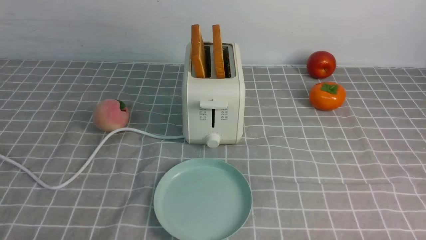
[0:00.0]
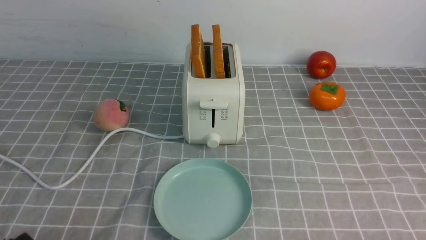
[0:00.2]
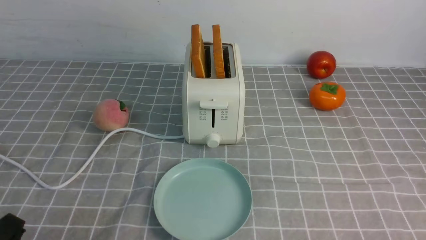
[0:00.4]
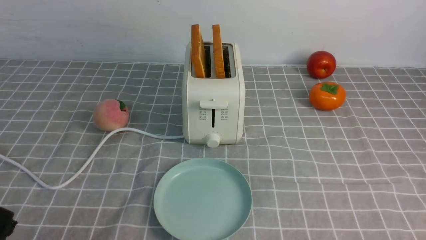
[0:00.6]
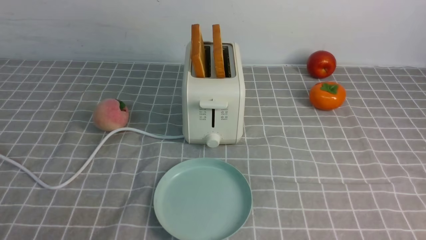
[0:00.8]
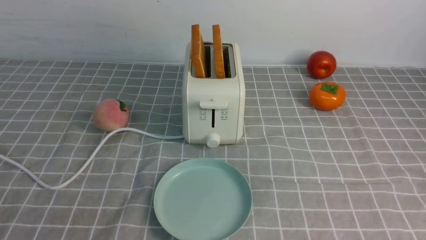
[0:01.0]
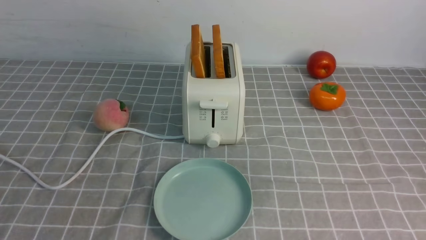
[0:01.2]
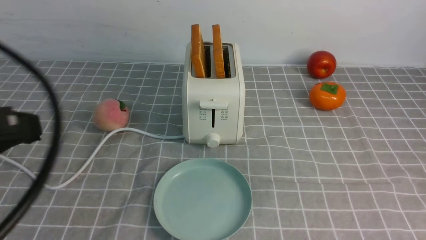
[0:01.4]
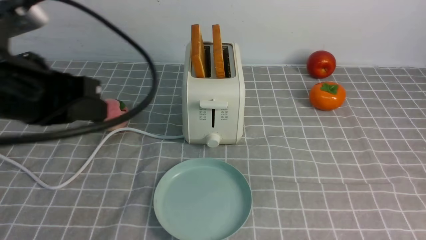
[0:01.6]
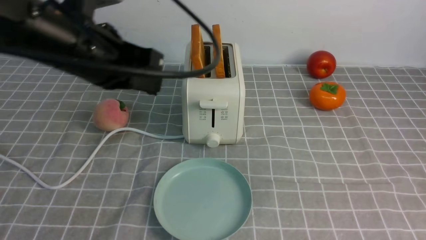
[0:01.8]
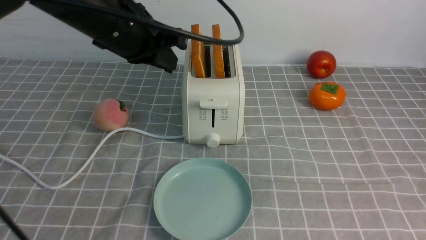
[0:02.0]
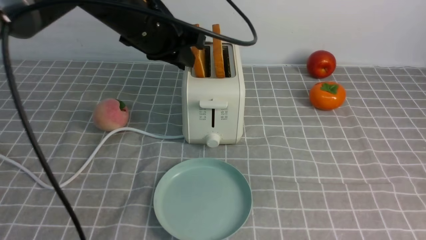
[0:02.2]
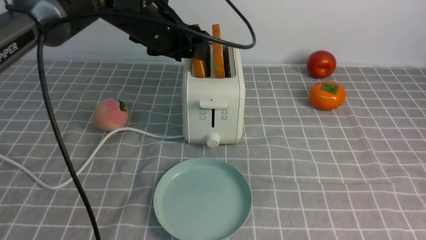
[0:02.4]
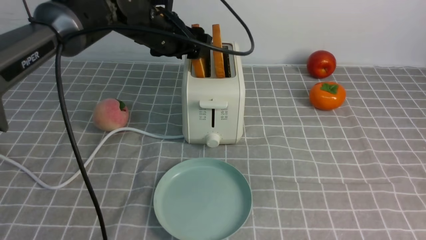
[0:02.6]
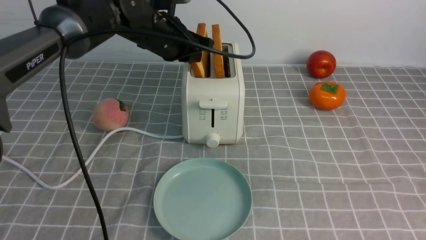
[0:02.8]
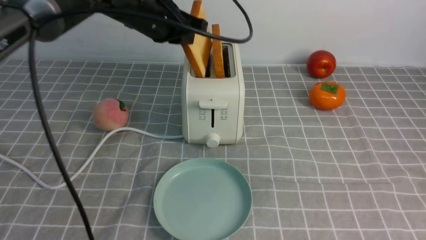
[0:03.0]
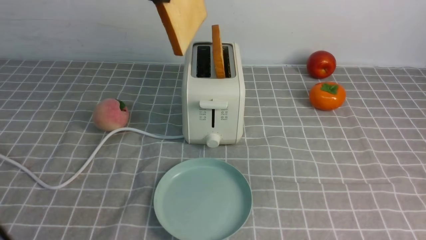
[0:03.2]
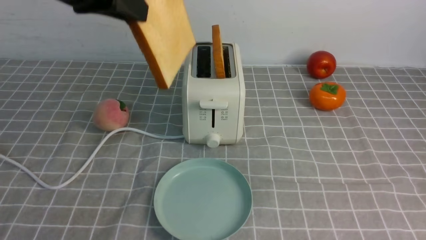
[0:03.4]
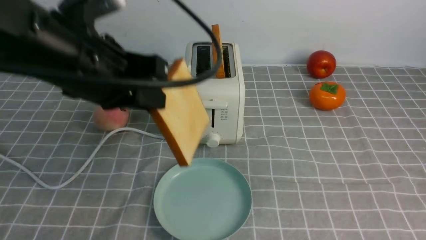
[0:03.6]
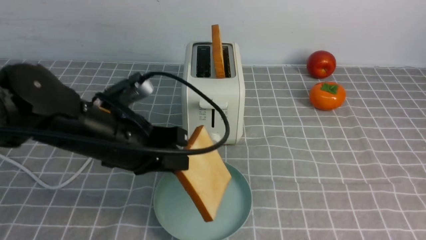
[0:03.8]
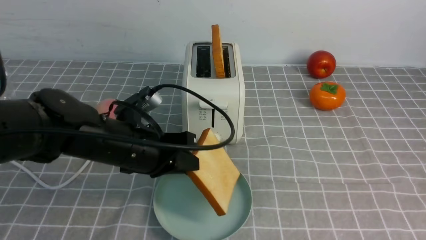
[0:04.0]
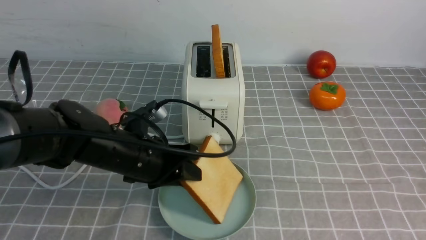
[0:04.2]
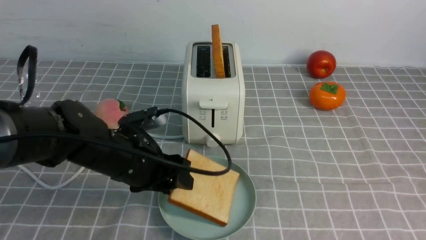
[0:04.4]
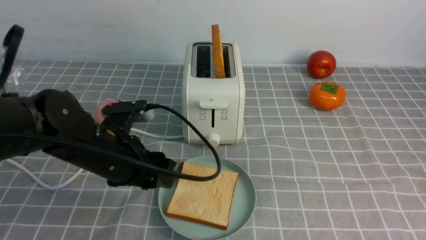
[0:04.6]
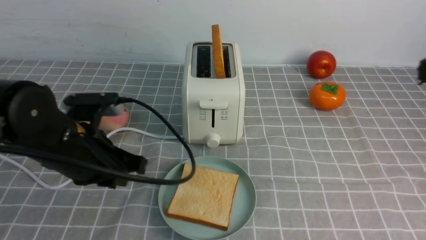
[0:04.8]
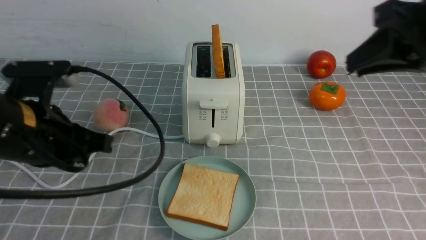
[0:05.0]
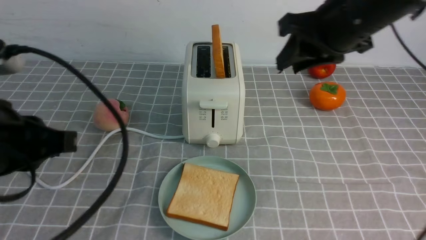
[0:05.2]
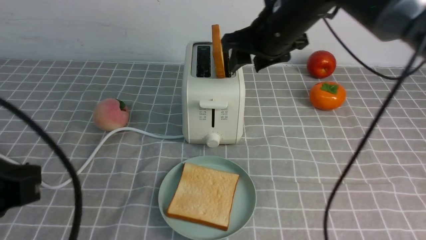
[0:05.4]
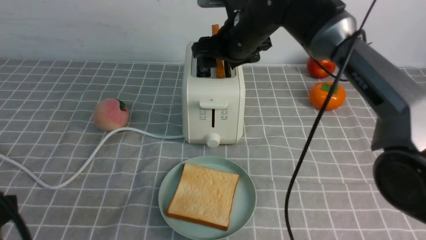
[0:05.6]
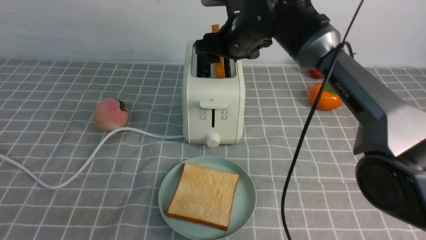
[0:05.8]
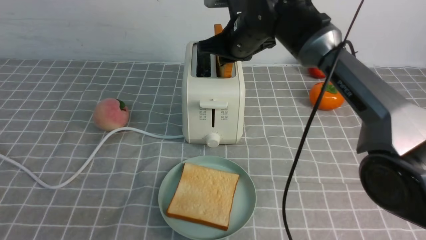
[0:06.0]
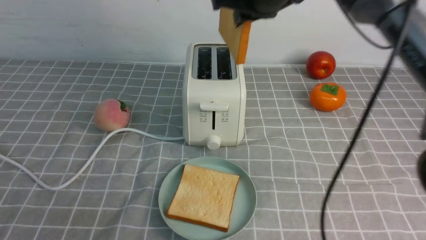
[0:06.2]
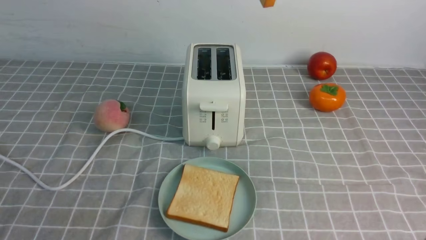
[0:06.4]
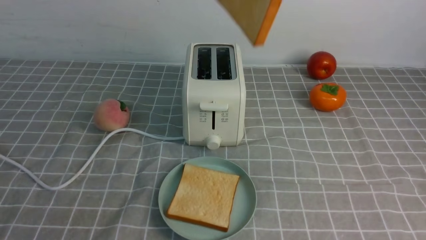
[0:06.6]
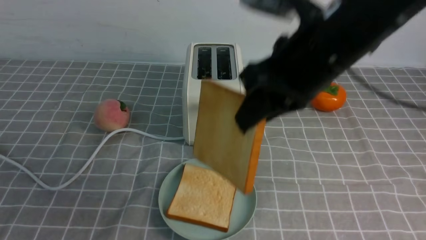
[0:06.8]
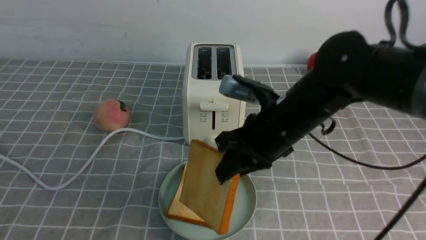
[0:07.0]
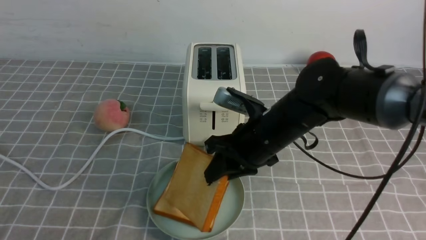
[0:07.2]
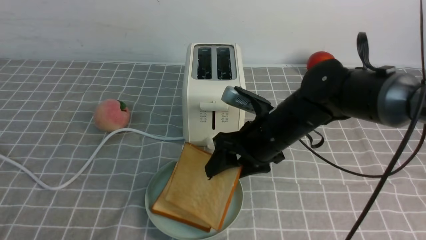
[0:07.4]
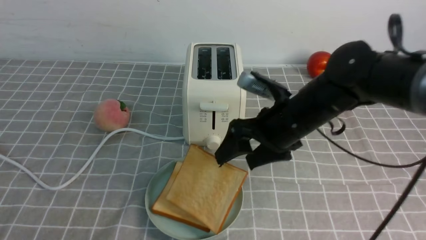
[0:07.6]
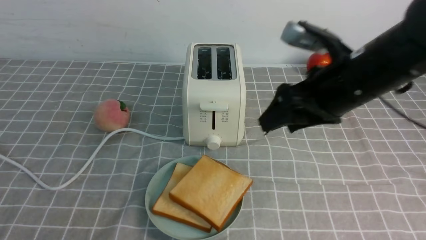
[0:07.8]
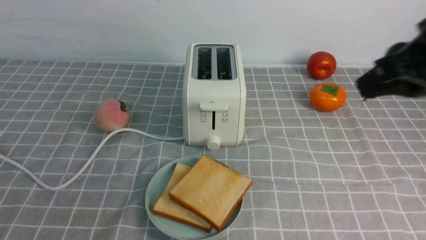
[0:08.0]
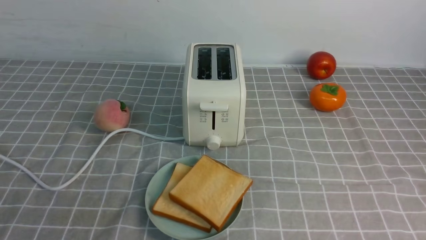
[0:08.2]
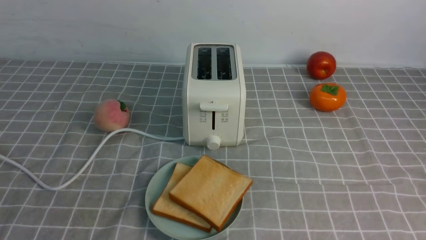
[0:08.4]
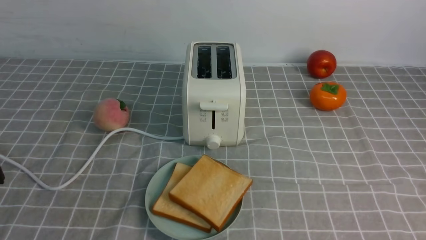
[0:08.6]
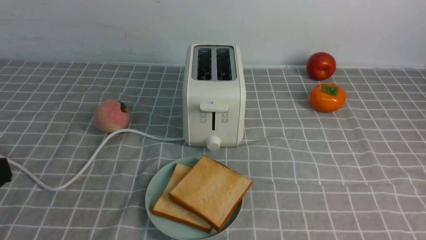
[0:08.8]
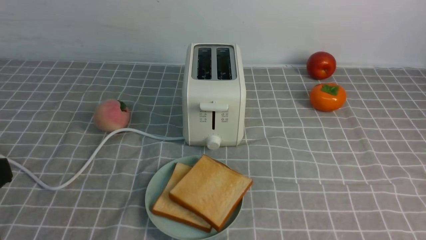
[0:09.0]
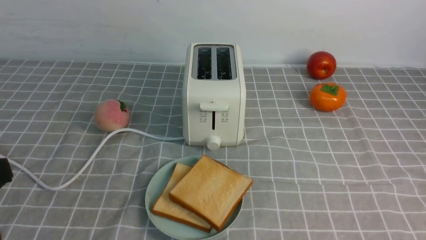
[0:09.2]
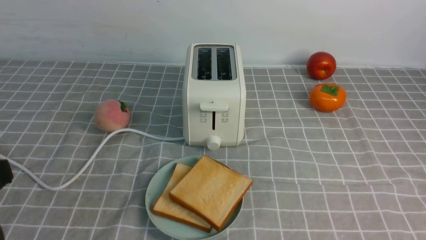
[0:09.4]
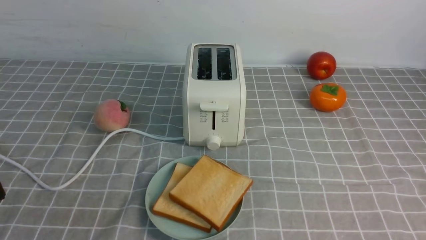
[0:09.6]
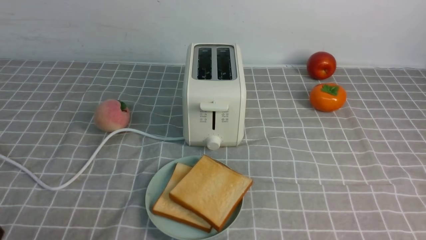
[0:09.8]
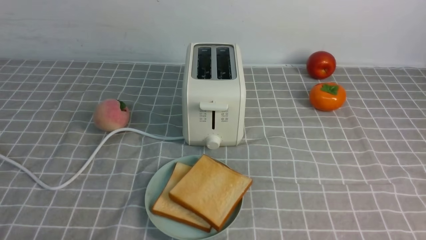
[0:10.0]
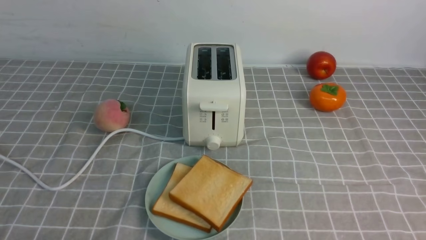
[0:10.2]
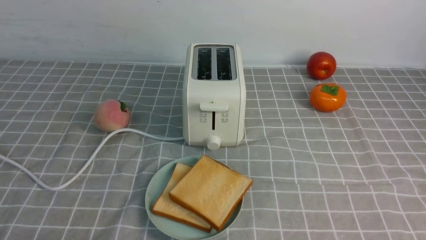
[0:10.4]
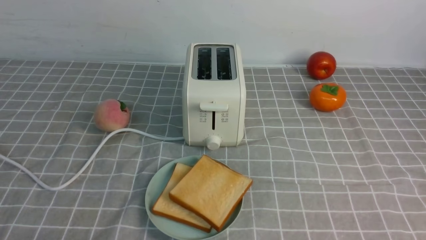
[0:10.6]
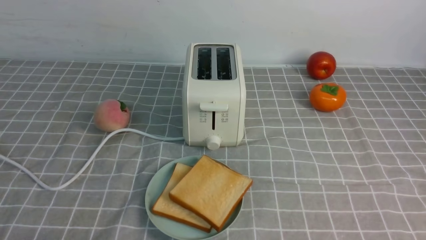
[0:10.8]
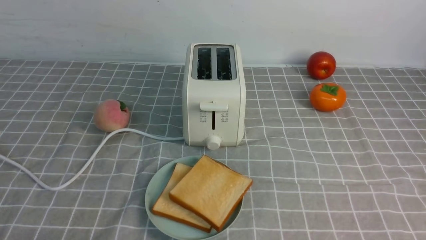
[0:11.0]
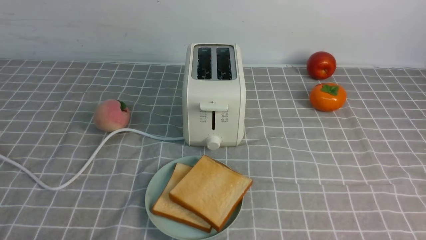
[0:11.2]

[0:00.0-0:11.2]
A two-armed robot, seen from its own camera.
Task of the whole recording: take toasted bread from bread machine on grey coffee table place on plate.
Step, 0:00.0 to 0:03.0: use the left arm to take out a slice of bread.
Step, 0:03.4 to 0:04.6: use the left arm to put a slice of bread into the empty plate.
Step, 0:04.8 to 0:06.2: use the right arm to take out a slice of bread.
Step, 0:06.4 to 0:07.8: use the right arm to put a slice of bread into the plate.
0:00.0 to 0:01.6: The left gripper moves upward and forward, some 25 cm, and closes its fingers.
0:01.6 to 0:03.2: The left gripper goes approximately 15 cm forward, upward and to the right, and opens, then closes again.
0:03.2 to 0:04.8: The right gripper is displaced forward and upward by roughly 15 cm. The left gripper moves downward and backward, roughly 20 cm, and opens, then closes again.
0:04.8 to 0:06.4: The left gripper is displaced backward by about 20 cm, and closes its fingers. Meanwhile the right gripper heads to the left, forward and upward, covering approximately 20 cm, and opens, then closes again.
0:06.4 to 0:08.0: The right gripper heads backward and to the right, covering some 15 cm, goes downward and returns, approximately 25 cm each way, and opens and closes again.
0:08.0 to 0:09.6: The right gripper travels backward, downward and to the right by some 25 cm.

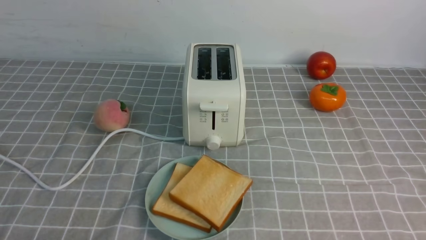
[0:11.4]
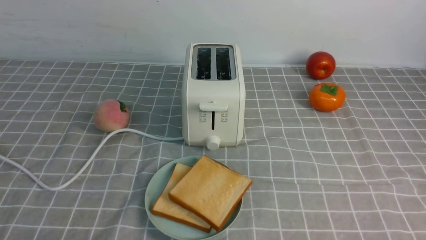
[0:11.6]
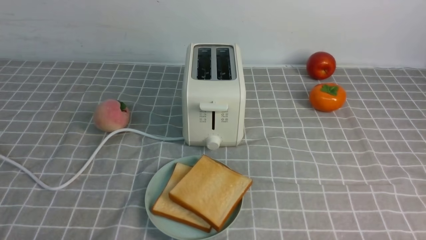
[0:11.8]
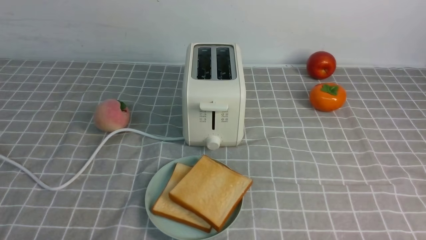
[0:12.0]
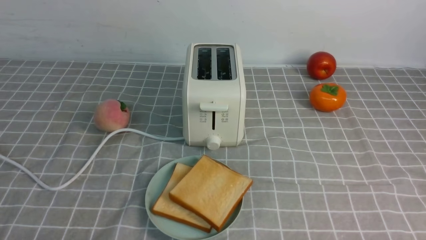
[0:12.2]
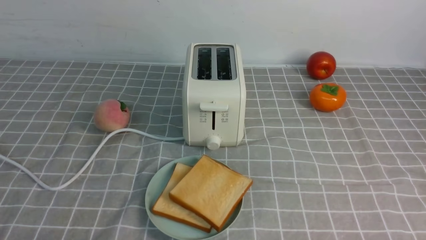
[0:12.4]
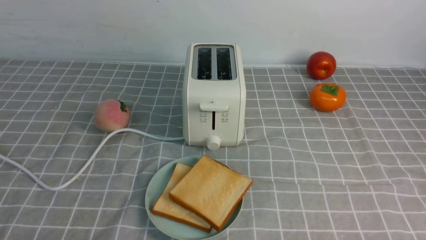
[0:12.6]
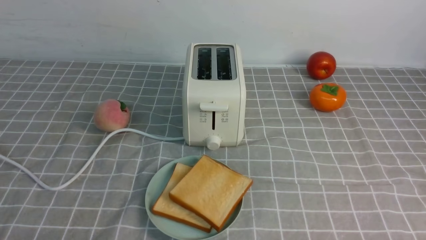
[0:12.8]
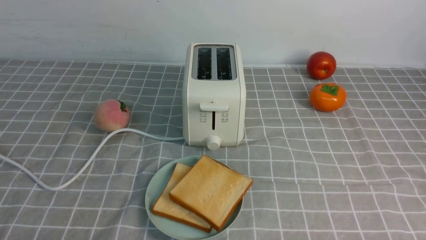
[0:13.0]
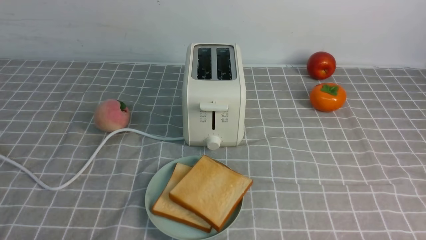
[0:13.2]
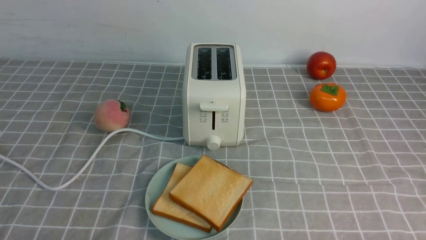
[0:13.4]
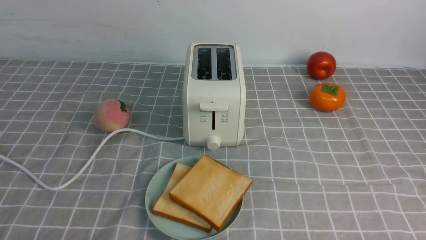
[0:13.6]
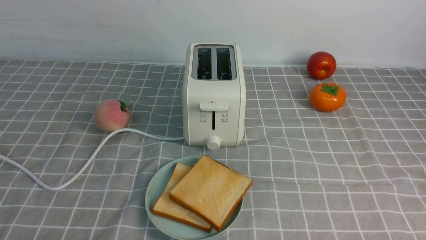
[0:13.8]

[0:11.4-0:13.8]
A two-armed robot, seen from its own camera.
Task of the whole recording: take toasted bread from bread machine on grey coffee table place on plate.
0:12.6 to 0:13.8: The two grippers keep their place.

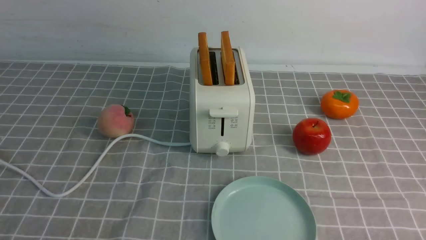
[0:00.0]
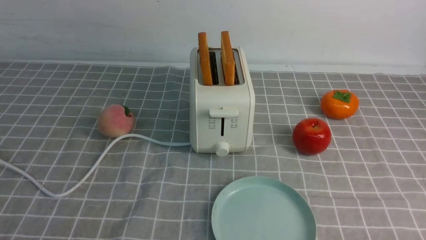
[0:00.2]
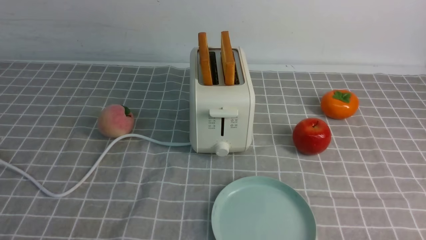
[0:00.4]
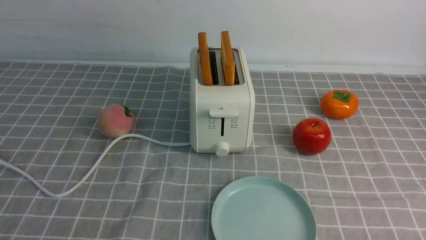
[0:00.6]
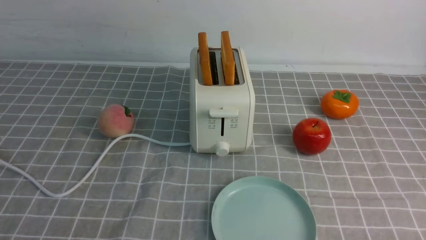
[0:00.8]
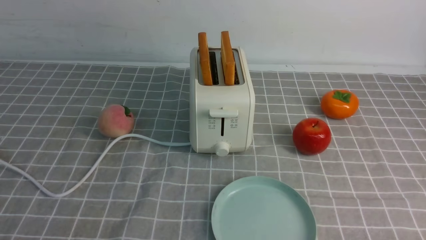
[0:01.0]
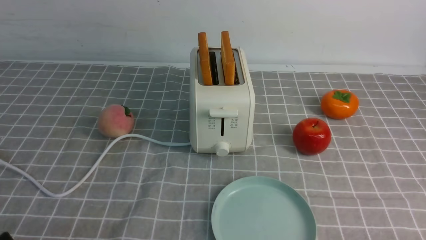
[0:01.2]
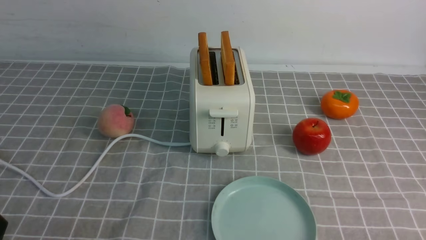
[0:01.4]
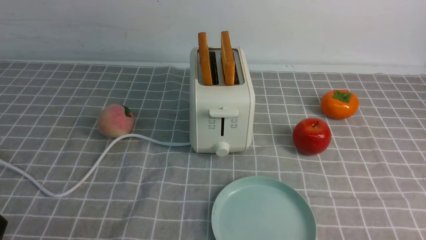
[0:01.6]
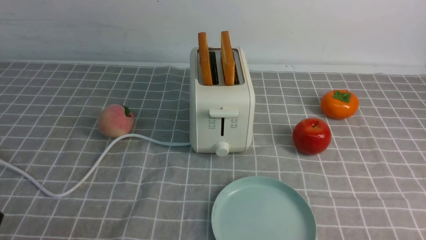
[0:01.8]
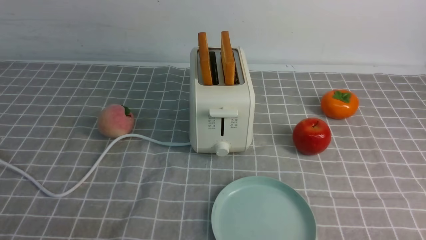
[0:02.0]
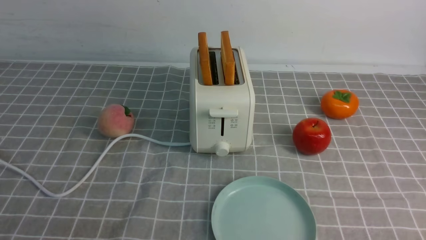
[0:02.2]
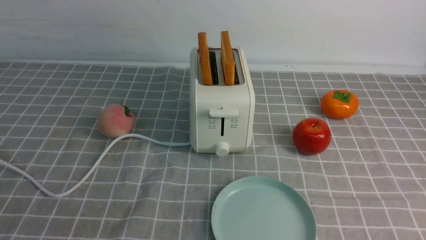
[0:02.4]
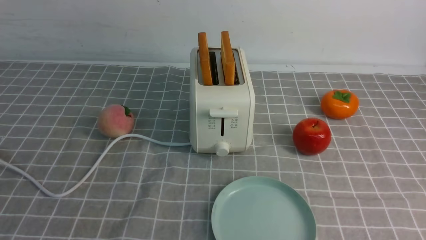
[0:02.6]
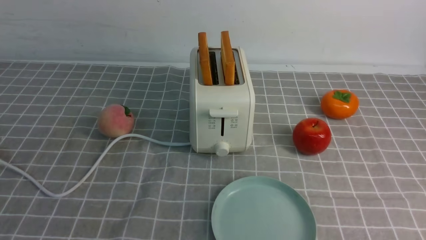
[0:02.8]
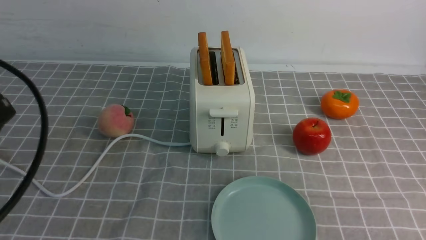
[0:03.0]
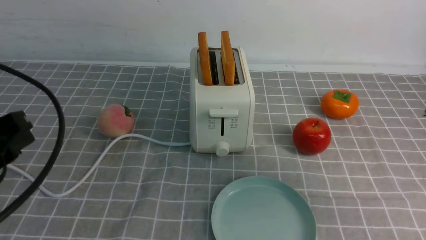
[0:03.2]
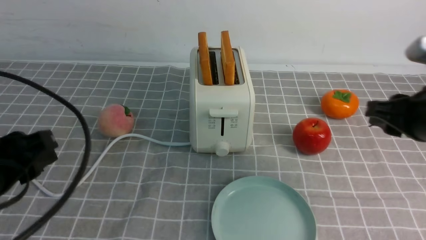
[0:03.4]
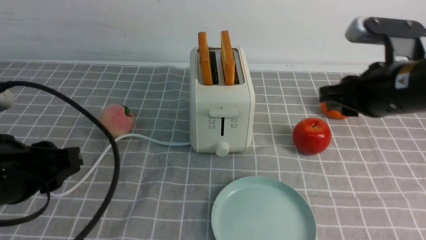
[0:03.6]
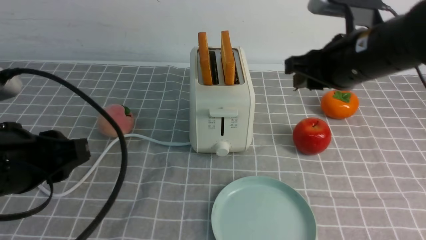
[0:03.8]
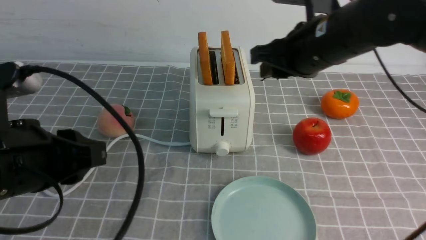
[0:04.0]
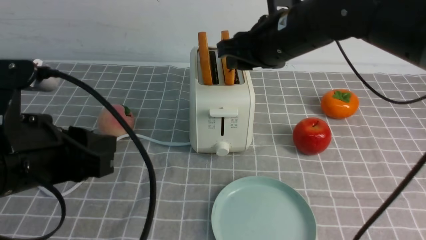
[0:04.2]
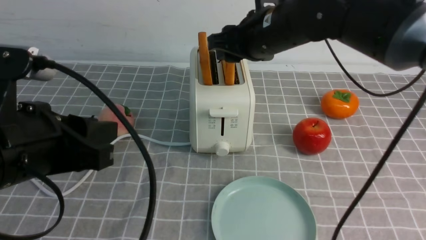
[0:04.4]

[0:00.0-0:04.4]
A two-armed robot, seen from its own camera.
Task of the whole recording: take toasted bread from bread machine on grey coffee table place on plate.
0:01.4 to 0:03.0: Both grippers move upward and forward, some 20 cm.
0:03.0 to 0:04.4: The right gripper shifts about 30 cm to the left and forward. Meanwhile the left gripper moves to the right, roughly 5 cm.
